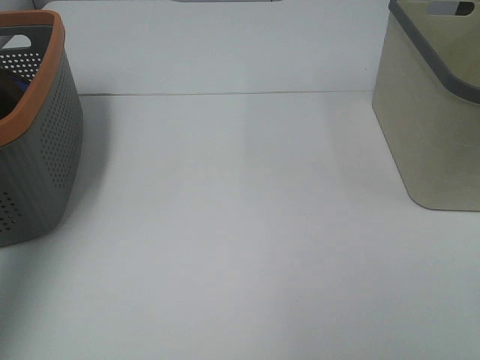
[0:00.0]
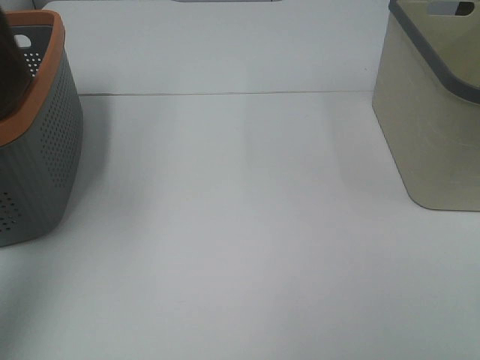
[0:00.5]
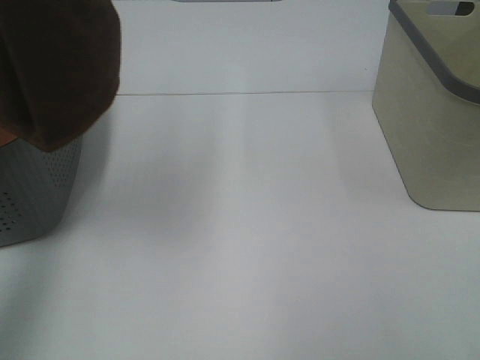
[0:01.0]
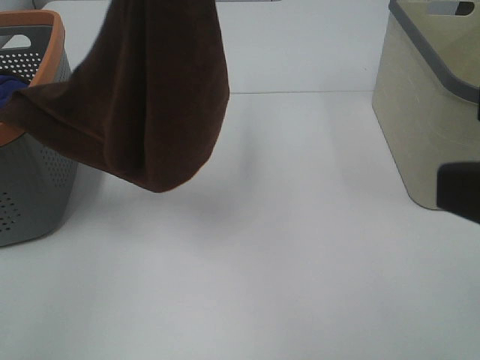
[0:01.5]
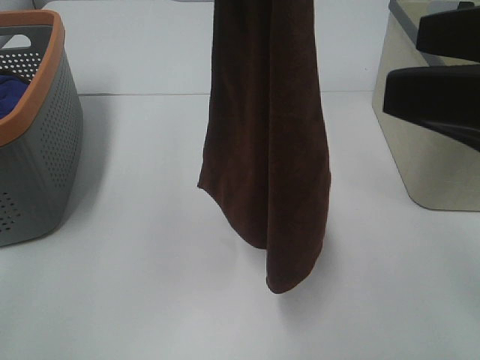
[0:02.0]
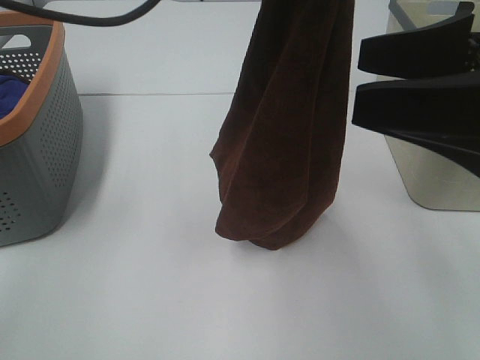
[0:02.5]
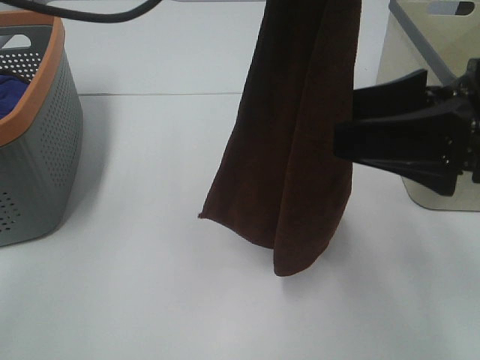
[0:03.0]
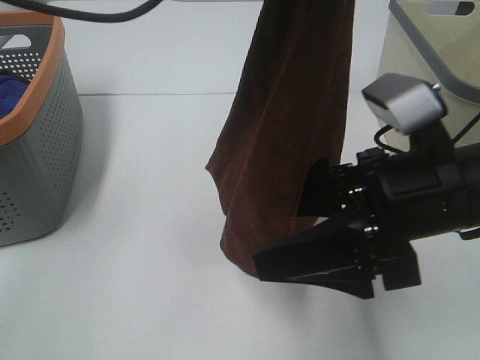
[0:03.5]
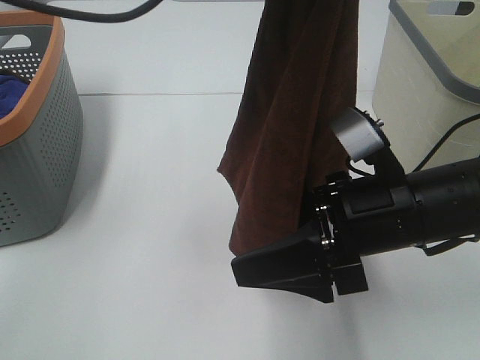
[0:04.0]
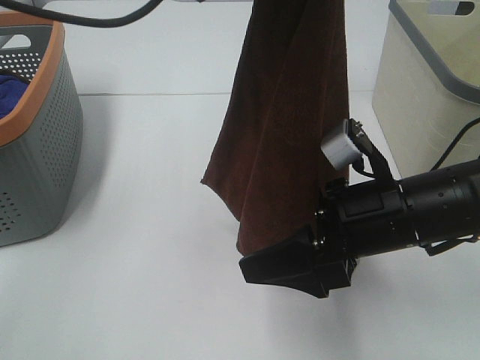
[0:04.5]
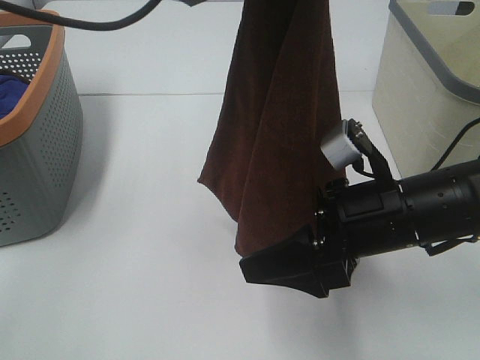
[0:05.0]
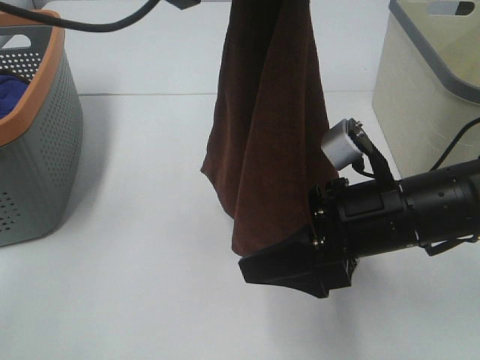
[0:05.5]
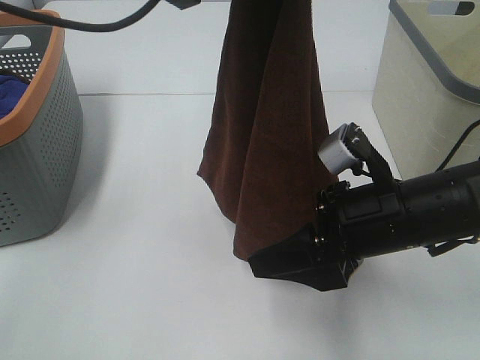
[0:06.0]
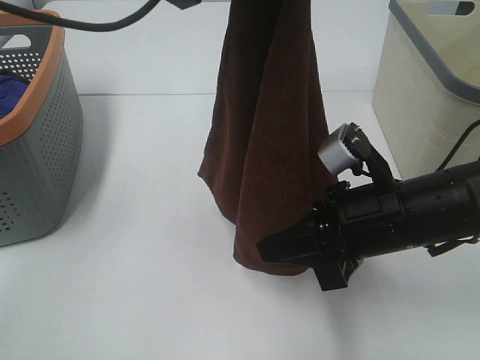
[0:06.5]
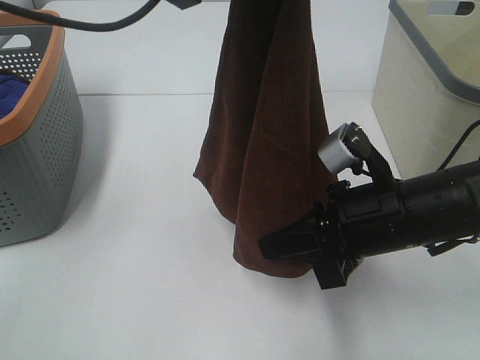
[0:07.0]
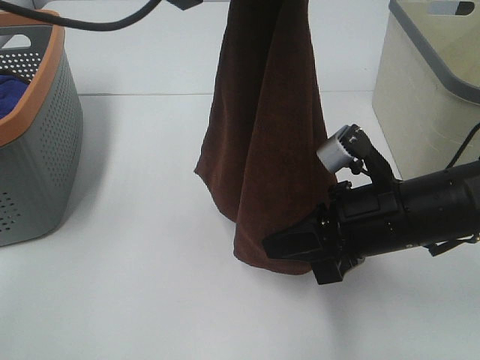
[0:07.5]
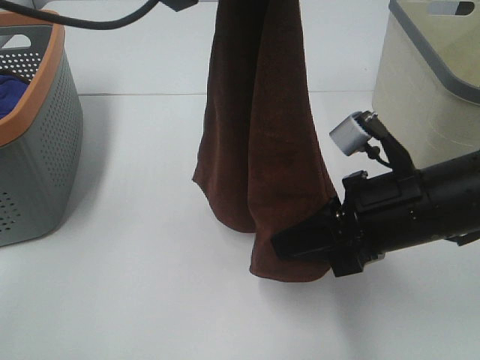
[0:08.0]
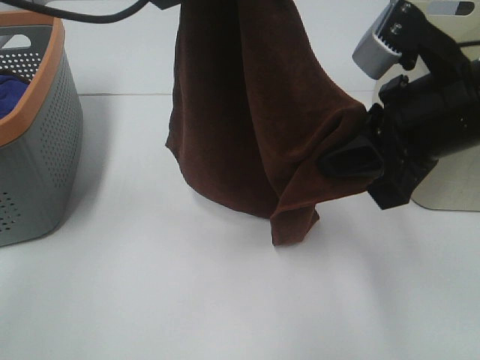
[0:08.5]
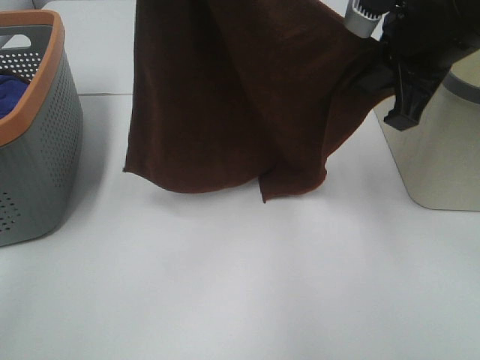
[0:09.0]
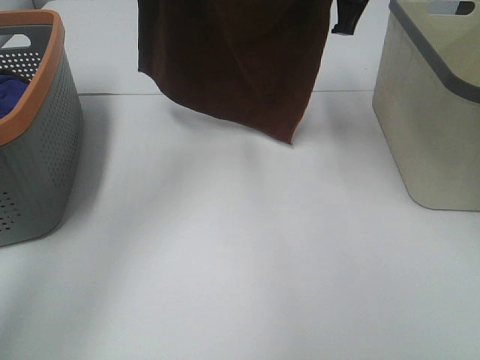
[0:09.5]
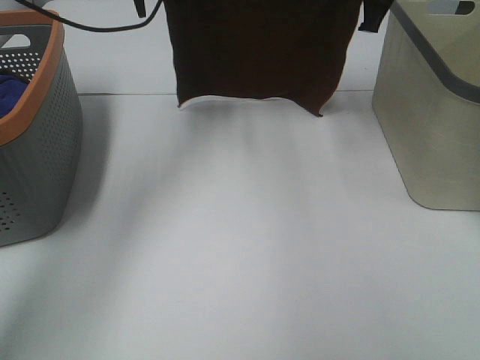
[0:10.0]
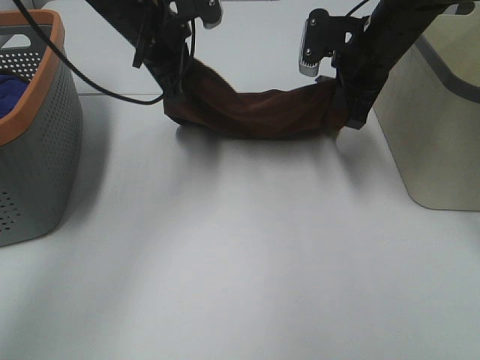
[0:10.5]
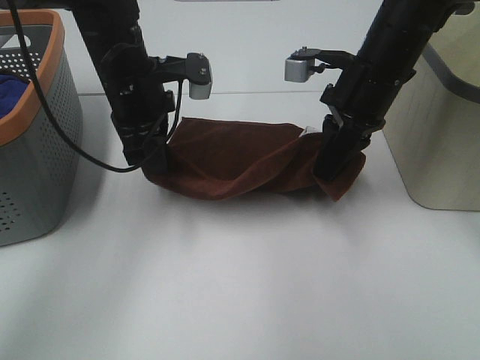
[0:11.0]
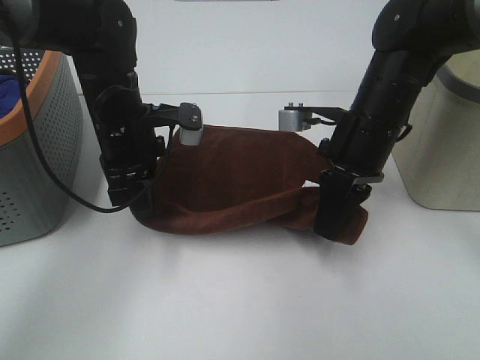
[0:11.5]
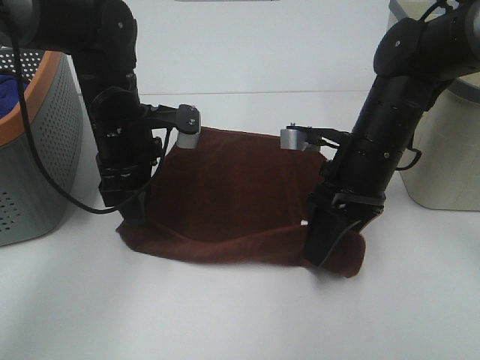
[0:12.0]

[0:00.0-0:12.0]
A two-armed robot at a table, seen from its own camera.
Task of the whole recording: Remove the towel and place it.
Step, 0:00.0 to 0:05.5: Right hand: grab a corner of the brown towel and straighten it.
Step, 0:06.0 to 0:07.5: Right hand: spread the brown towel flat on the table.
0:00.0 to 0:02.0: The left gripper shifts about 25 cm to the right, while the right gripper goes some 15 cm forward.
0:02.0 to 0:04.0: The right gripper shifts approximately 20 cm downward and to the left.
0:04.0 to 0:06.0: The grippers move only a little.
0:06.0 to 0:08.0: The right gripper closes its fingers.
0:08.0 to 0:10.0: The right gripper goes some 30 cm forward and upward, while the left gripper goes some 25 cm forward and downward.
0:10.0 to 0:12.0: The grippers both shift downward and backward by some 20 cm. The left gripper opens up. The right gripper opens.

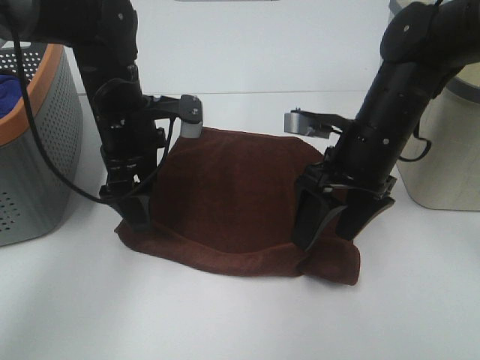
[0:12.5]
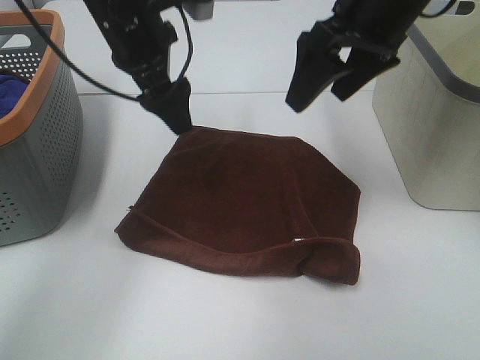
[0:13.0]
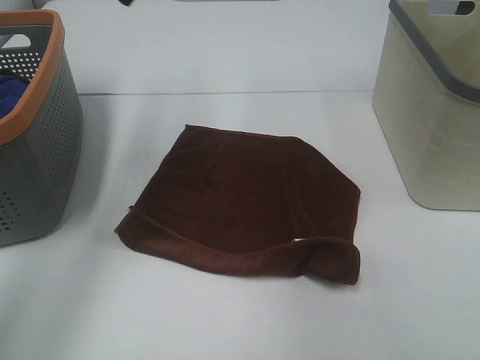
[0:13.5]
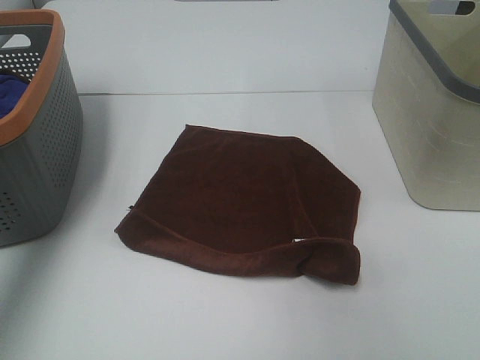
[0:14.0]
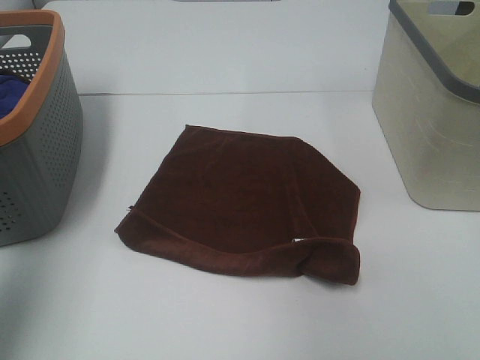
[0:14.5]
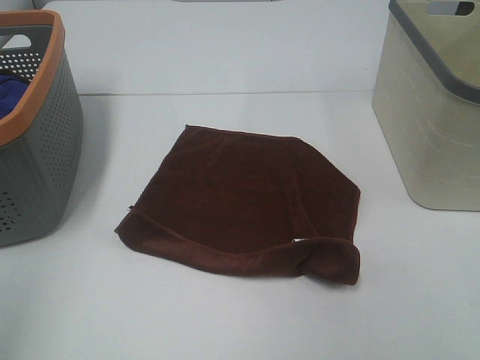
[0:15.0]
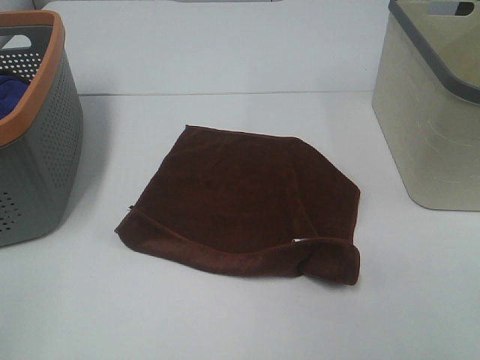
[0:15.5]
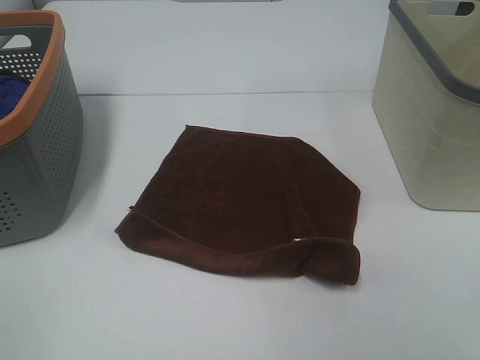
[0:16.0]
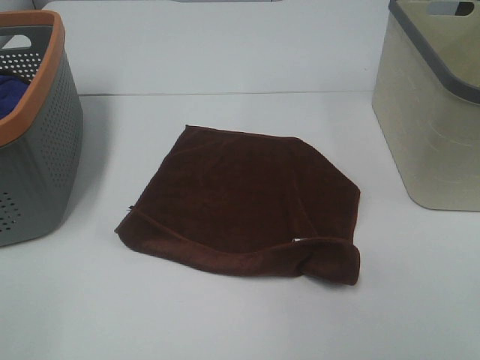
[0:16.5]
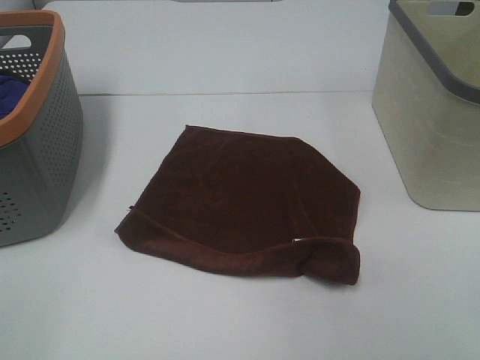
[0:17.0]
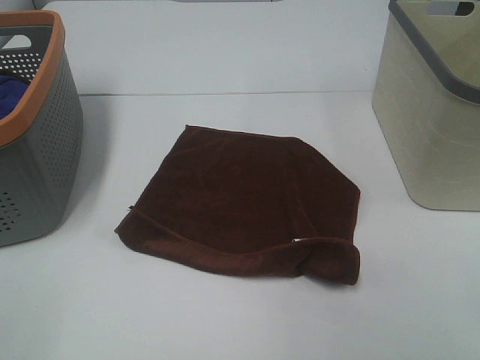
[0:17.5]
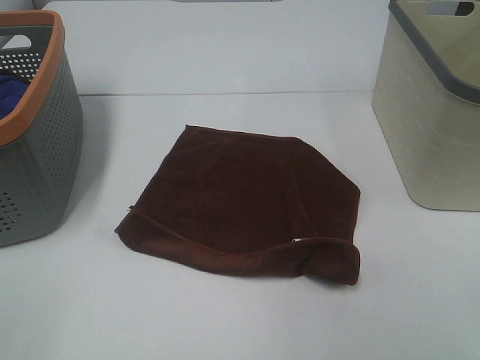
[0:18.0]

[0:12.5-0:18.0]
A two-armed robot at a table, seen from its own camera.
Task of the whole recording: Remove the towel and place it.
0:12.5 to 0:14.5: The left gripper is displaced upward, backward and to the left by roughly 35 cm. The right gripper goes roughly 30 cm upward, backward and to the right.
0:14.5 to 0:16.0: The left gripper goes roughly 20 cm backward and downward.
0:16.0 to 0:18.0: The two grippers keep their place.

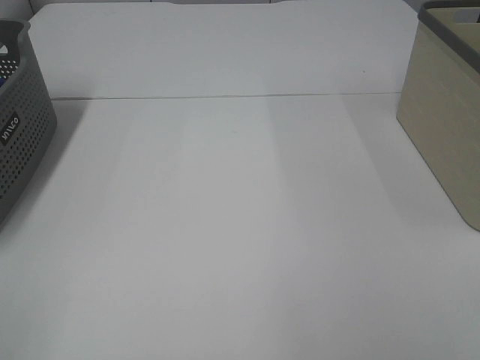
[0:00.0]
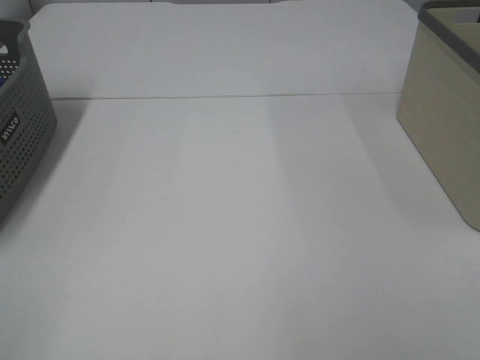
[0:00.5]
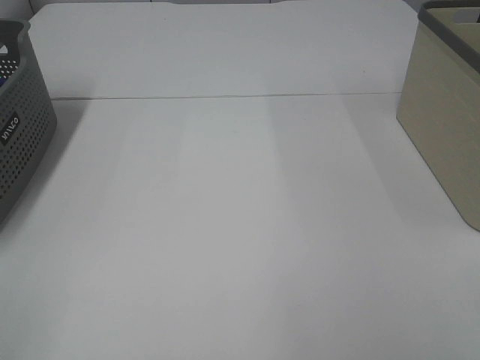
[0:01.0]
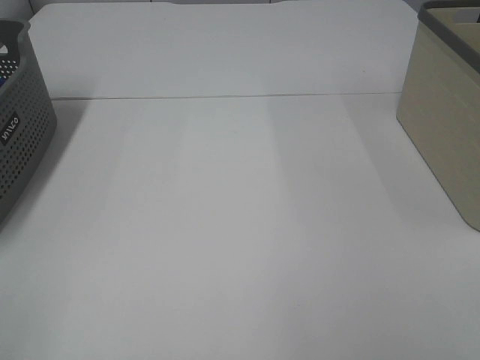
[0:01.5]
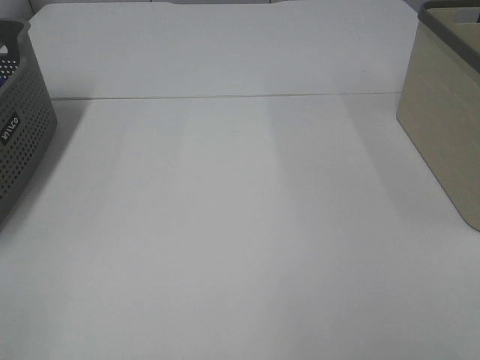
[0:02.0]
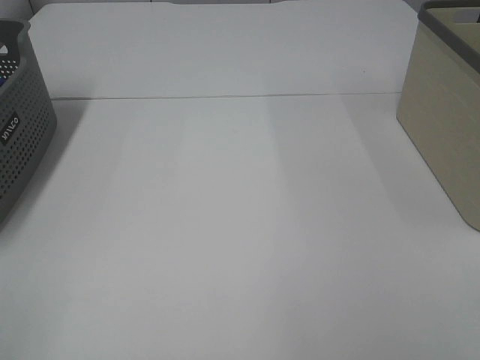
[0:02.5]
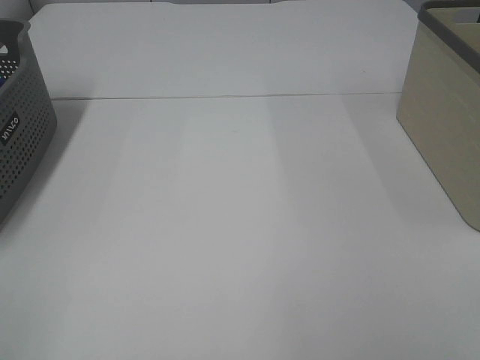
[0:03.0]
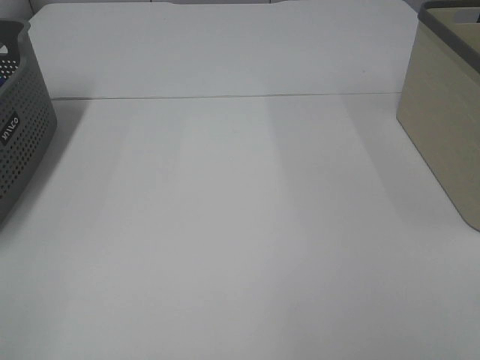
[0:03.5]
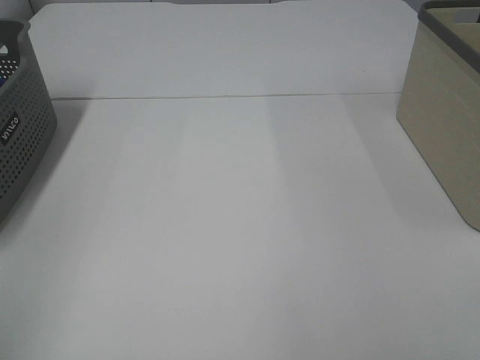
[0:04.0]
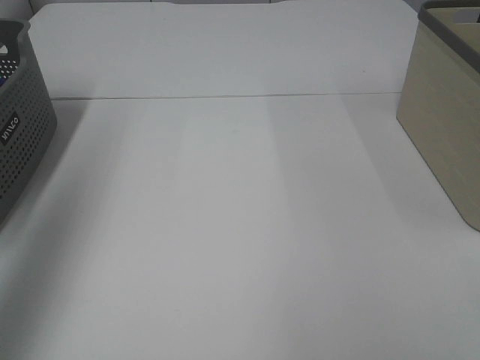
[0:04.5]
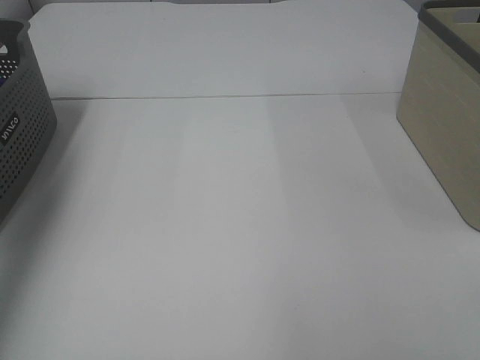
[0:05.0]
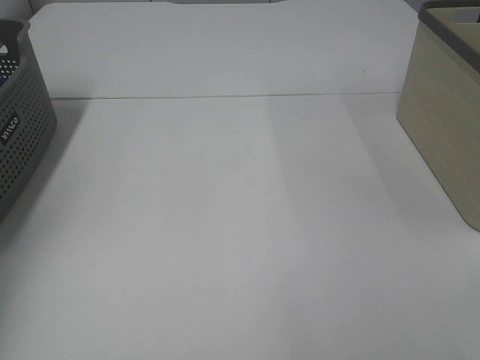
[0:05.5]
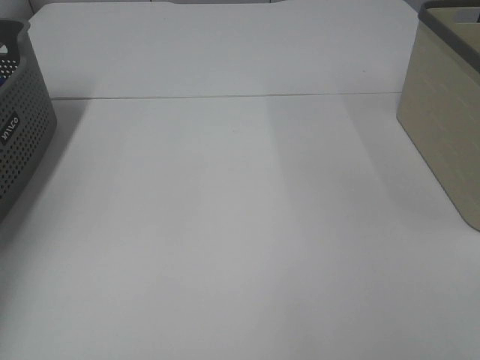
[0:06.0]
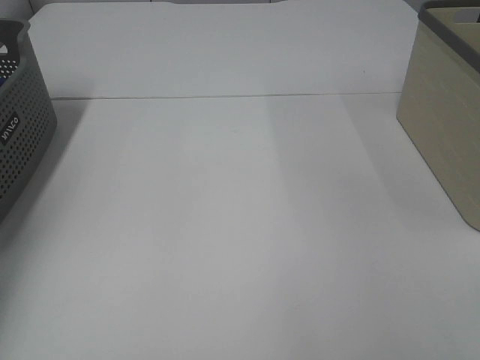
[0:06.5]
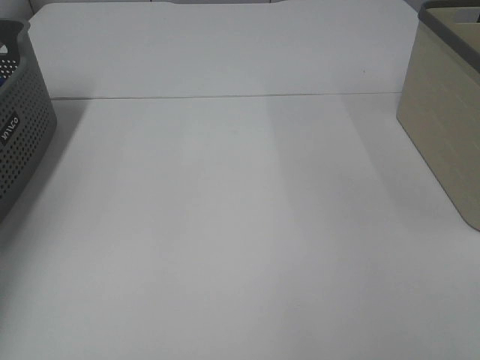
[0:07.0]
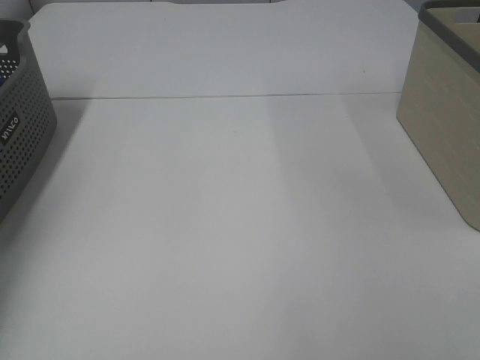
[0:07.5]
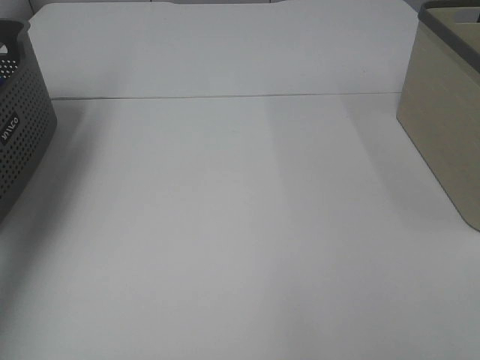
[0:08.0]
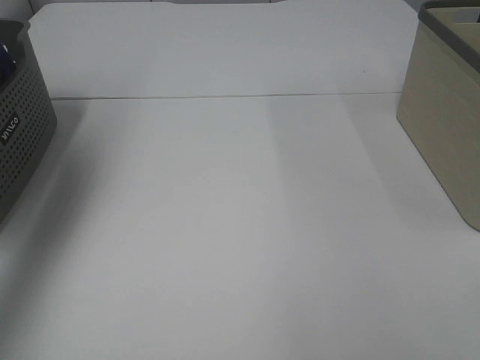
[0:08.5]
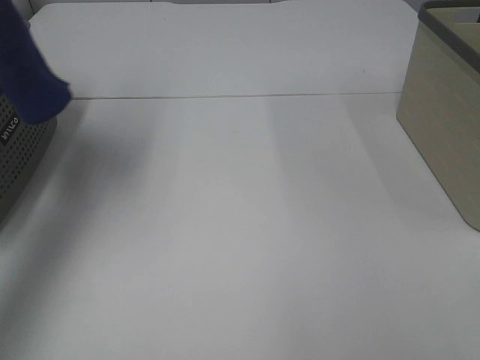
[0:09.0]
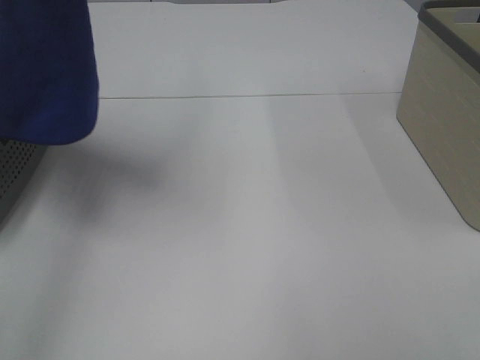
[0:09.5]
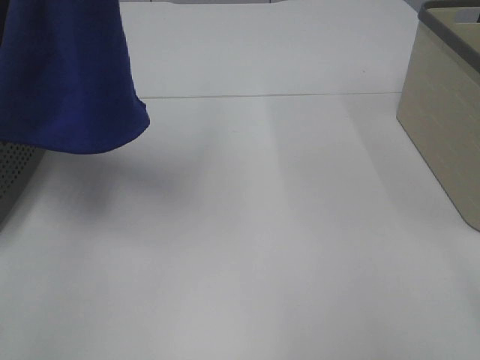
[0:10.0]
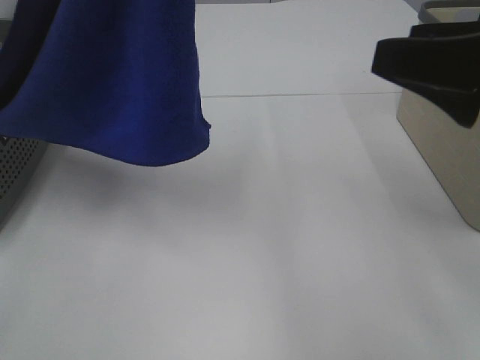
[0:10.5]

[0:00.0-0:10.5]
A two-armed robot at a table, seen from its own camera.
Task of the whole recording: Remove the towel and place it.
0:00.0 to 0:02.0: Neither gripper changes place.
0:04.0 to 0:06.5: The left gripper moves forward and downward, about 40 cm, and closes.
0:06.5 to 0:08.5: The left gripper is displaced upward by some 30 cm, and closes up.
0:08.5 to 0:10.5: The right gripper moves forward, some 20 cm. Meanwhile the left gripper heads to the right, covering some 20 cm.
